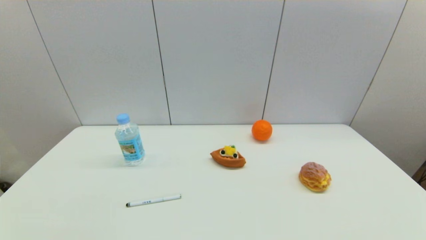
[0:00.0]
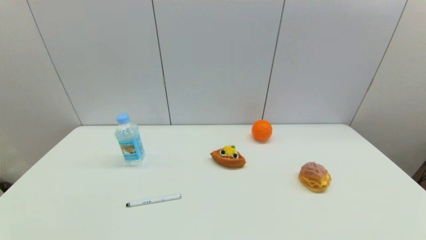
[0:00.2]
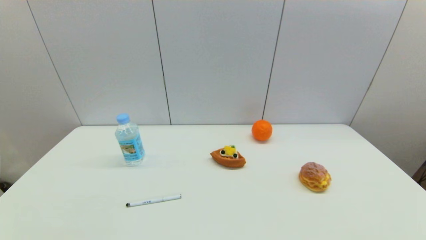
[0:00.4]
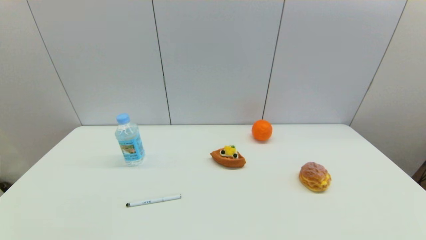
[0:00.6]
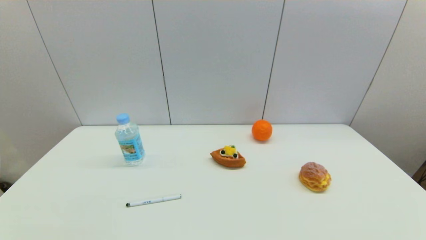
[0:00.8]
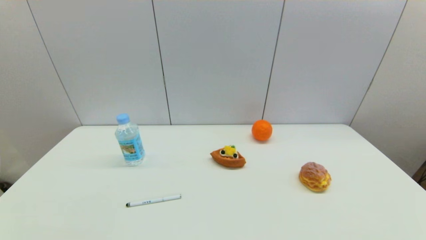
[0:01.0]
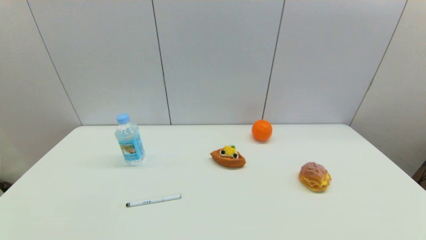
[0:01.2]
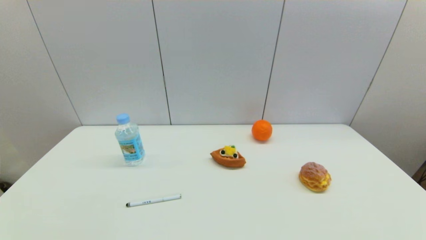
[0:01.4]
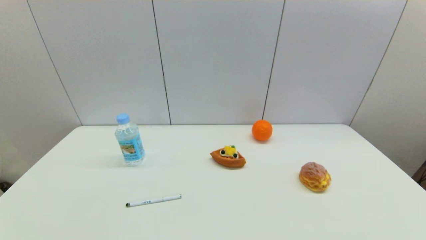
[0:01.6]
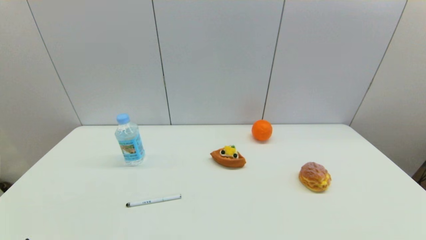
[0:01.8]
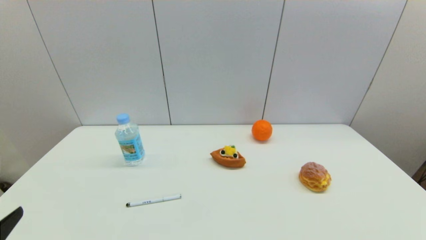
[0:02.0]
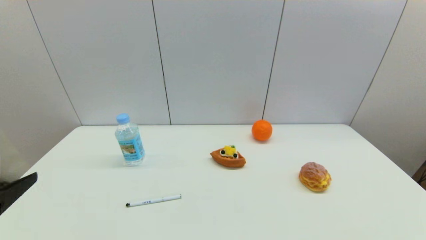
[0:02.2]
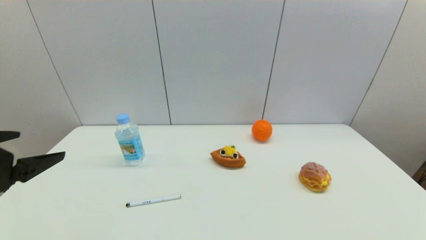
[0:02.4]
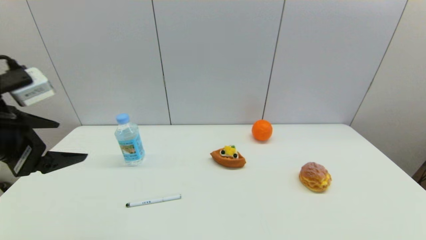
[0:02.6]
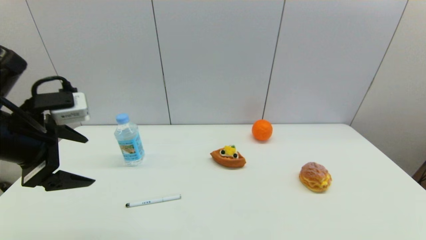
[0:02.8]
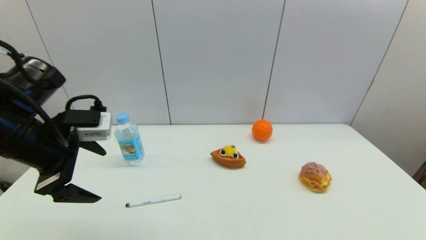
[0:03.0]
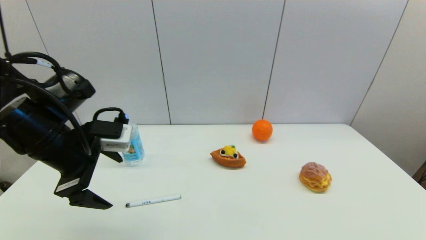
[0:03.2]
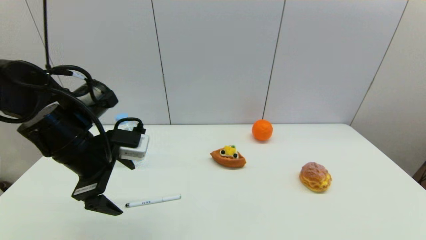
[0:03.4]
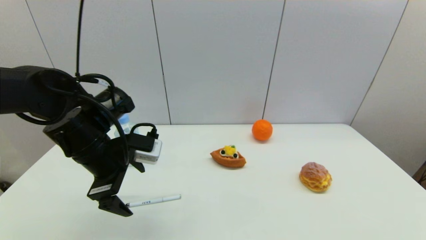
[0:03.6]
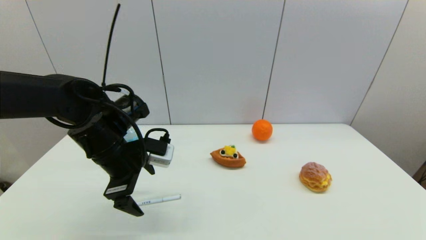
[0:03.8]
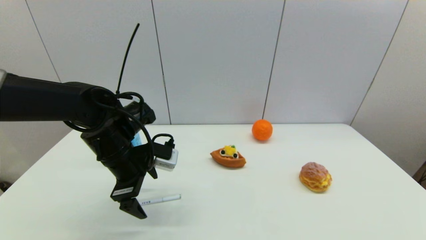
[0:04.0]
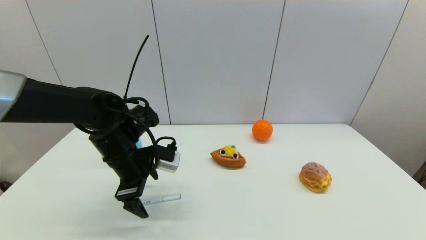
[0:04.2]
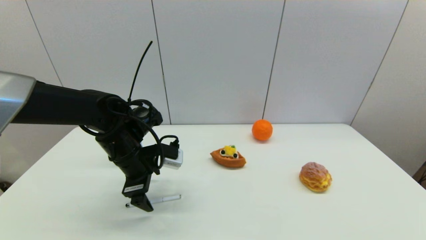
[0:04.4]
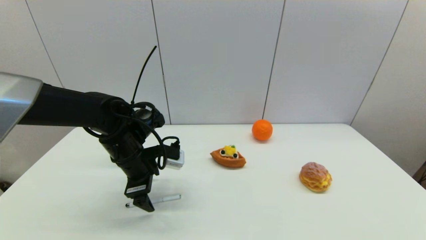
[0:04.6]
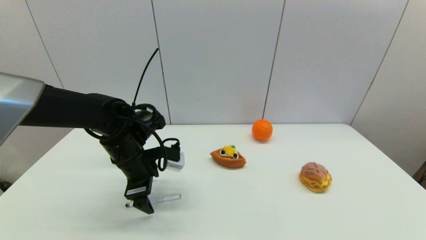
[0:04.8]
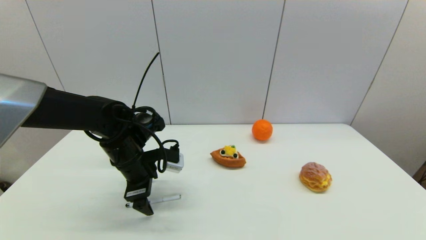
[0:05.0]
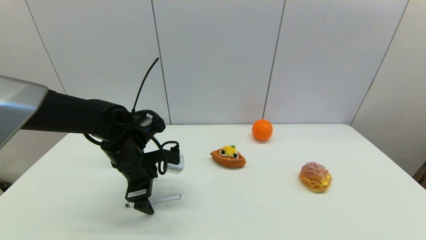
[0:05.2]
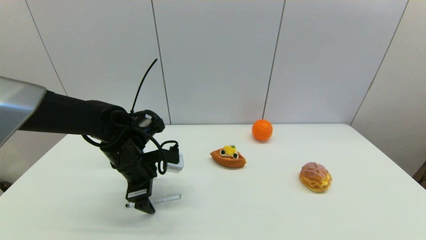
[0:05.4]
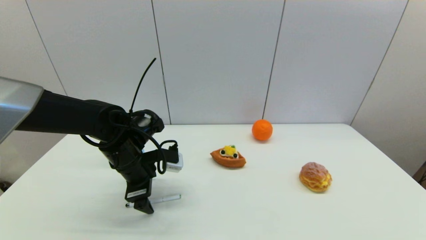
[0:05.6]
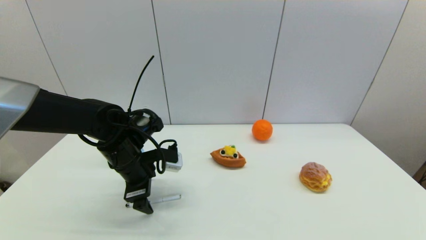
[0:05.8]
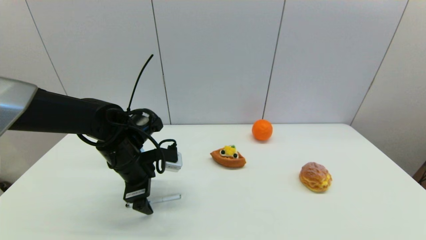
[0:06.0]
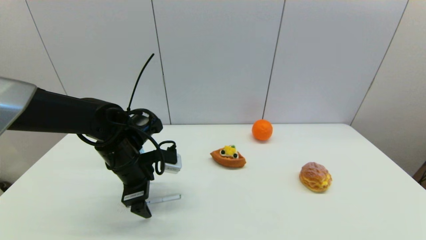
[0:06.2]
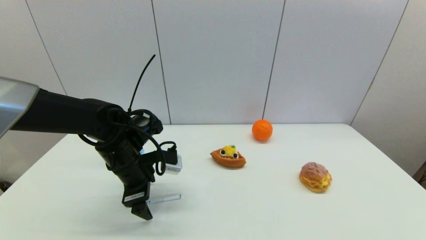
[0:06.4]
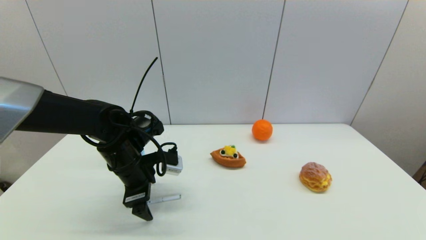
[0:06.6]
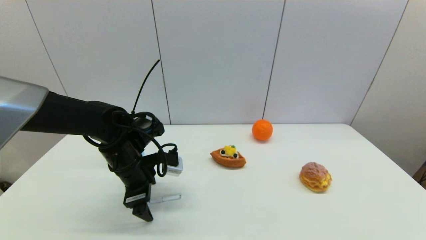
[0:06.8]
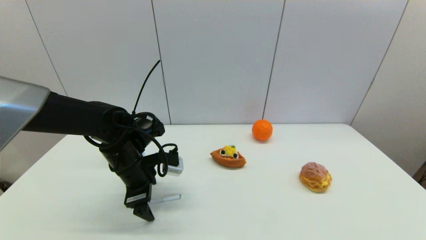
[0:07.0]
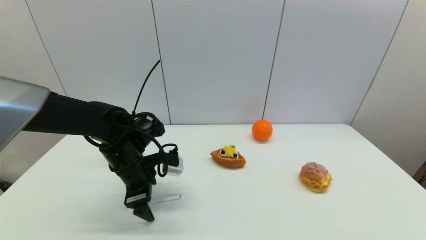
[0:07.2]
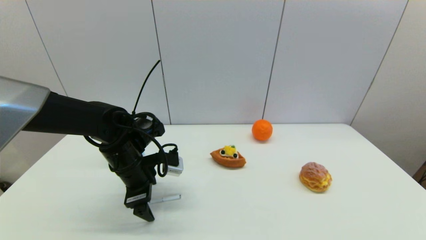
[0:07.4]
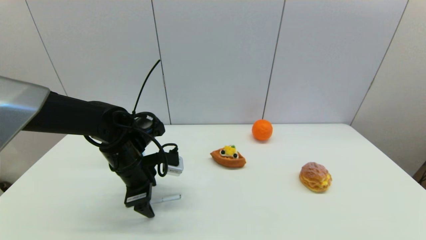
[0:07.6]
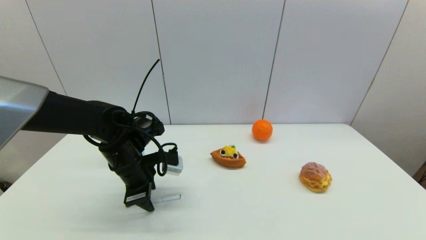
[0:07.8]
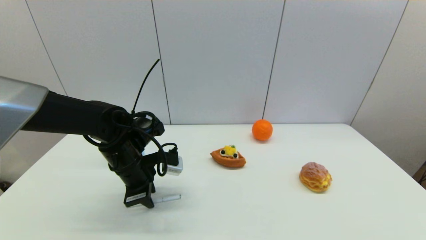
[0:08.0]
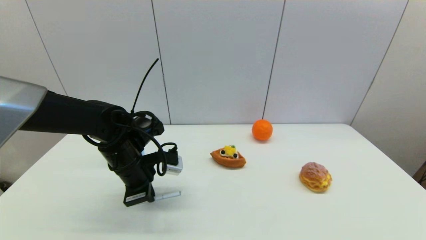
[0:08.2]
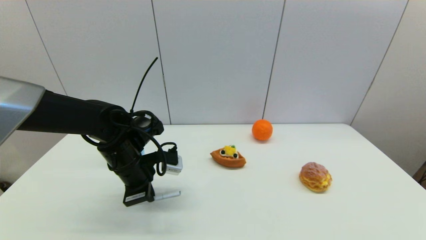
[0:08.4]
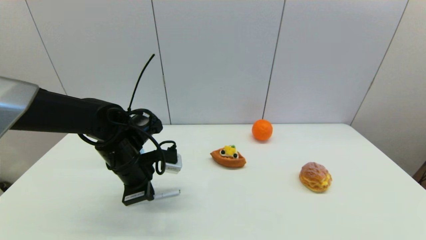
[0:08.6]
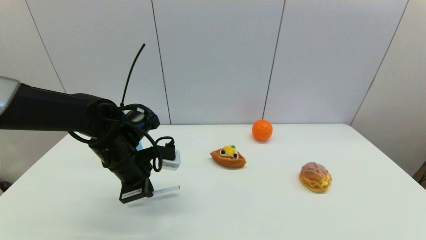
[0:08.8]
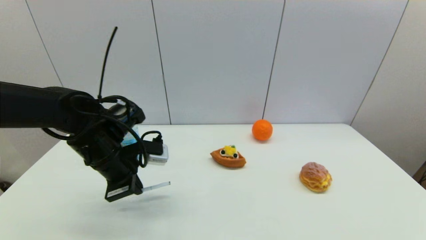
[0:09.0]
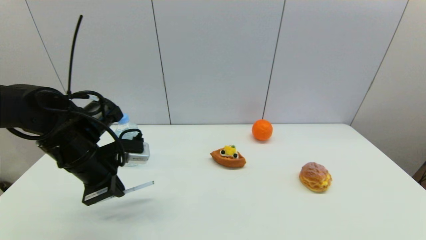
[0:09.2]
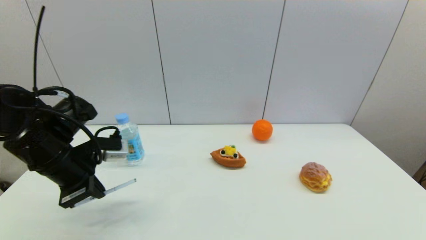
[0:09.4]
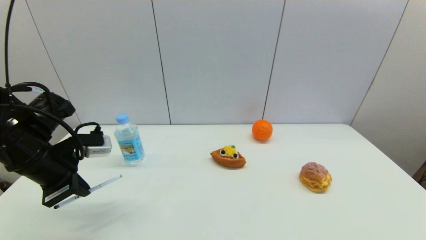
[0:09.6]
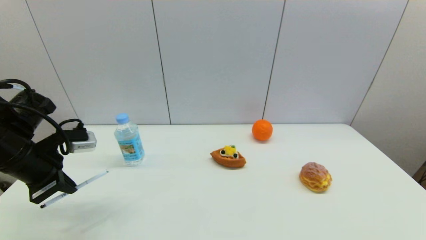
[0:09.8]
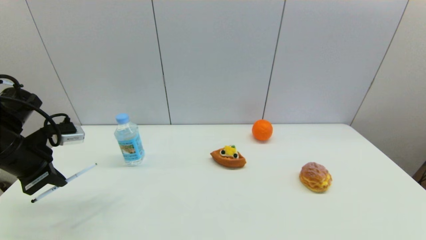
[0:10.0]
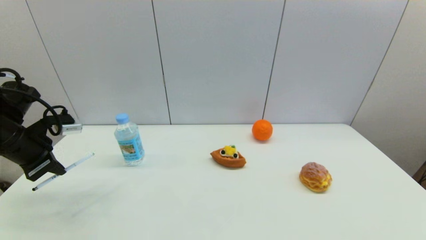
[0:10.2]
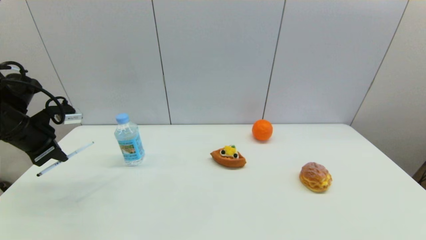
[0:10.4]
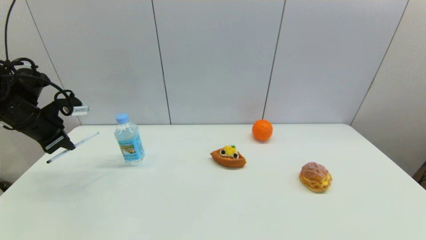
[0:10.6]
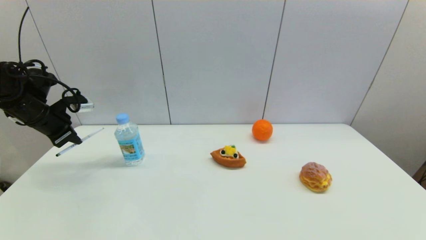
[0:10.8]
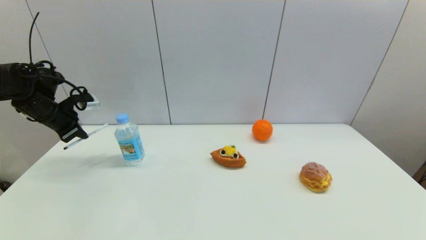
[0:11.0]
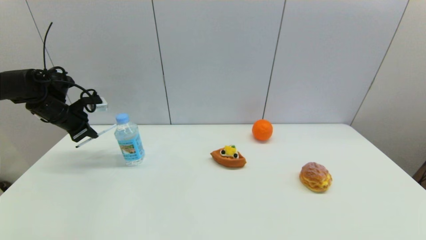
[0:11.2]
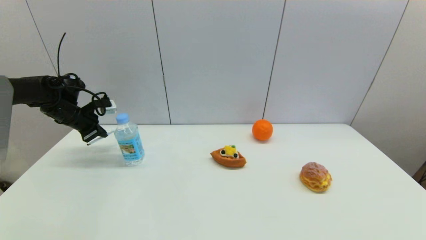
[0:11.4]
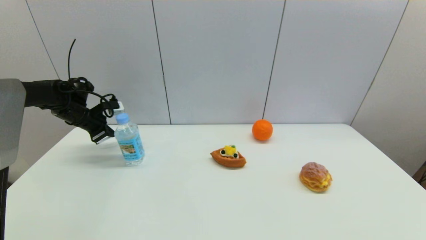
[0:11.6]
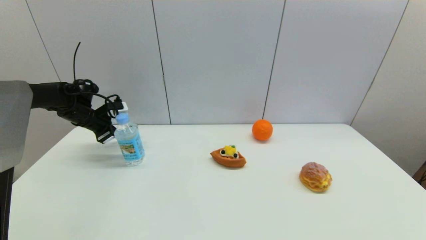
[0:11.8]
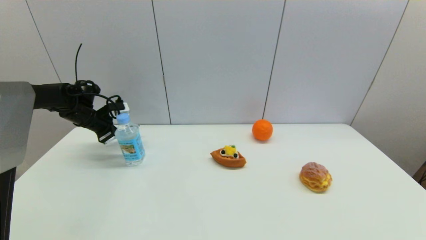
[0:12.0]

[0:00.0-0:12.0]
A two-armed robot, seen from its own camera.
Task of the whole recording: put the pen in the designated position.
Step, 0:02.0 to 0:08.2: Grasp the sign pen with left gripper.
0:00.0 to 0:01.6: Both grippers stay about where they are.
0:01.6 to 0:03.0: The left gripper goes roughly 30 cm forward and upward.
0:03.0 to 0:04.4: The left gripper moves downward, to the right and forward, approximately 15 cm.
0:04.4 to 0:06.0: The grippers move only a little.
0:06.0 to 0:07.6: The two grippers keep their place.
0:07.6 to 0:09.0: The left gripper ends up about 5 cm from where it was, and closes its fingers.
0:09.0 to 0:10.4: The left gripper shifts roughly 20 cm to the left.
0:10.4 to 0:12.0: The left gripper heads forward and downward, covering about 15 cm.

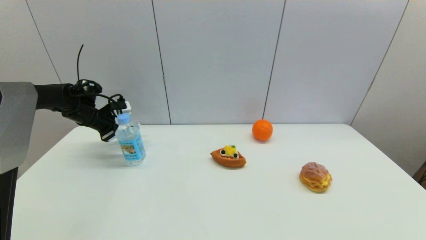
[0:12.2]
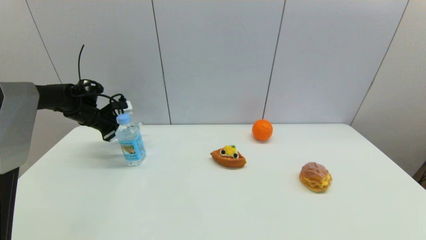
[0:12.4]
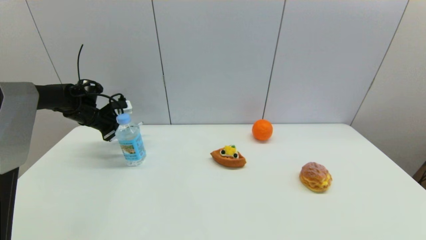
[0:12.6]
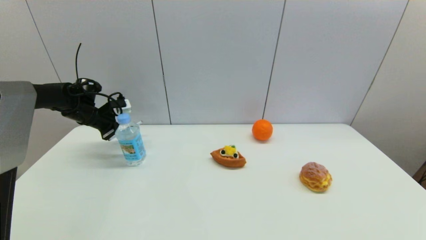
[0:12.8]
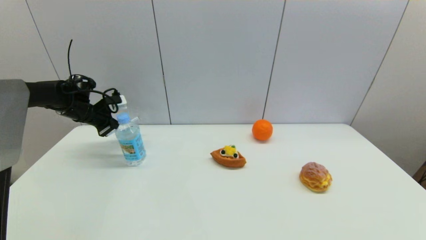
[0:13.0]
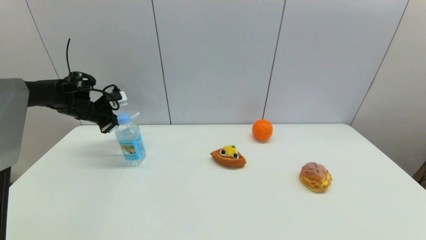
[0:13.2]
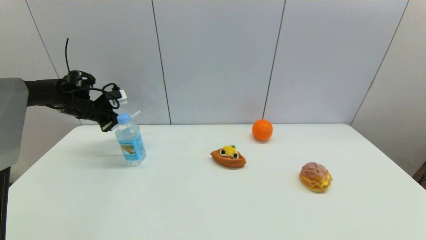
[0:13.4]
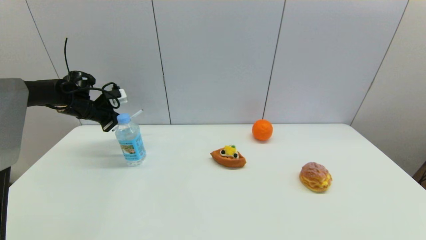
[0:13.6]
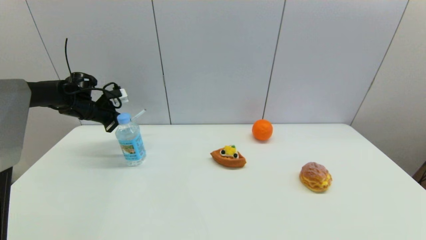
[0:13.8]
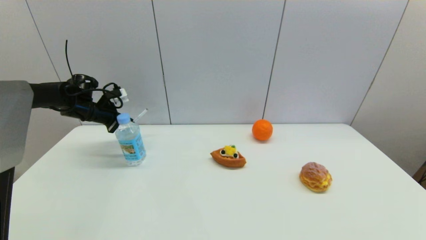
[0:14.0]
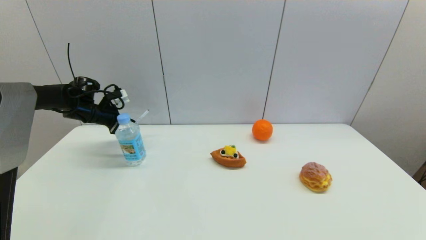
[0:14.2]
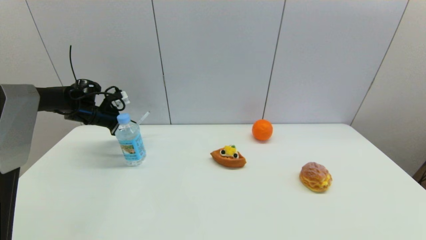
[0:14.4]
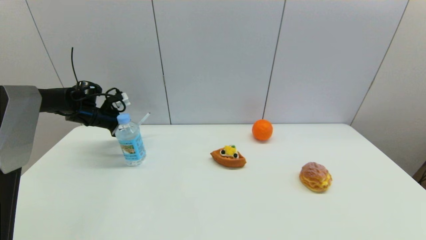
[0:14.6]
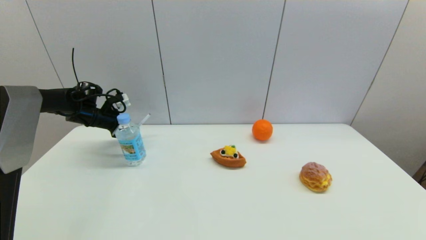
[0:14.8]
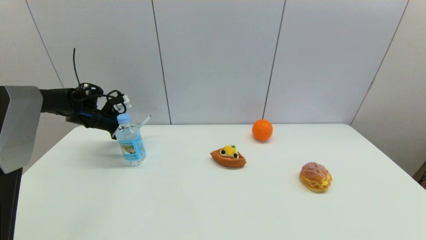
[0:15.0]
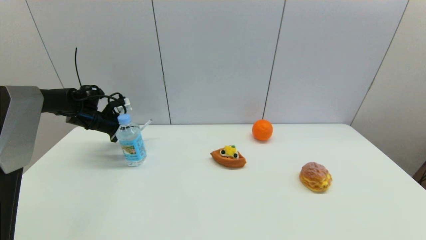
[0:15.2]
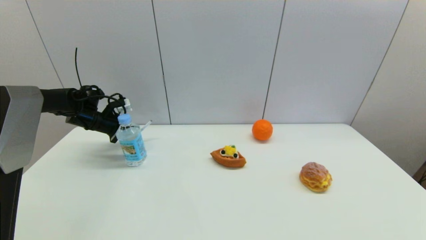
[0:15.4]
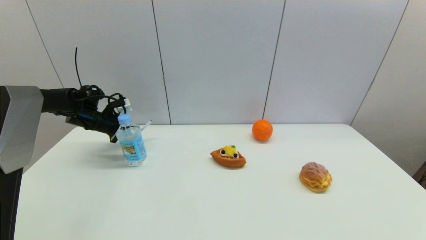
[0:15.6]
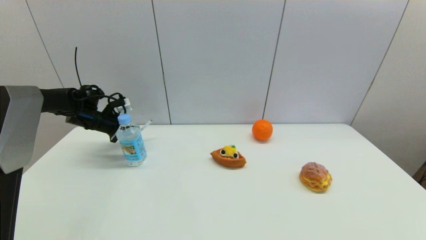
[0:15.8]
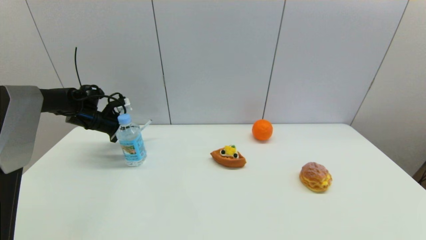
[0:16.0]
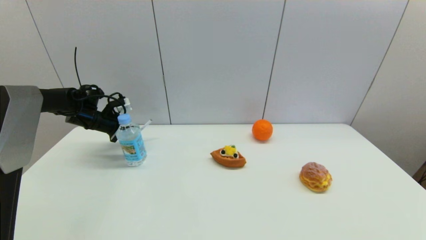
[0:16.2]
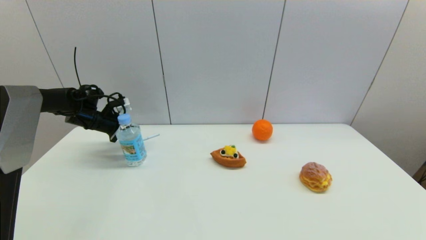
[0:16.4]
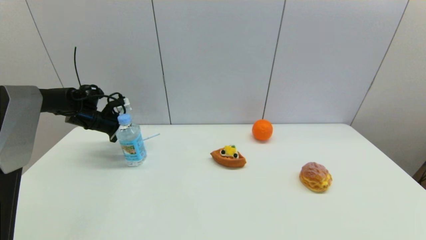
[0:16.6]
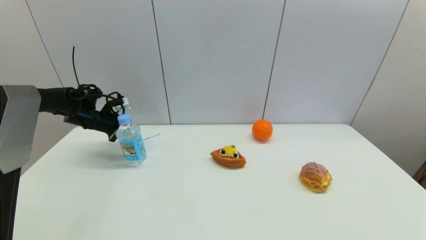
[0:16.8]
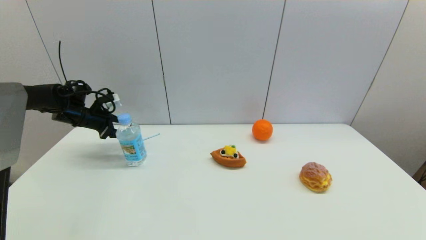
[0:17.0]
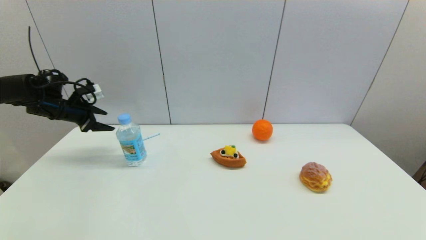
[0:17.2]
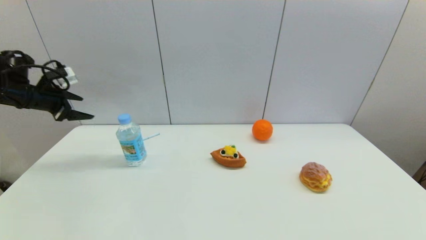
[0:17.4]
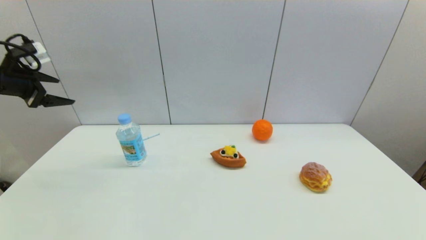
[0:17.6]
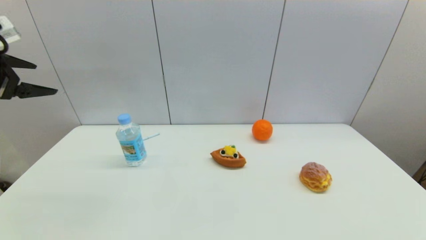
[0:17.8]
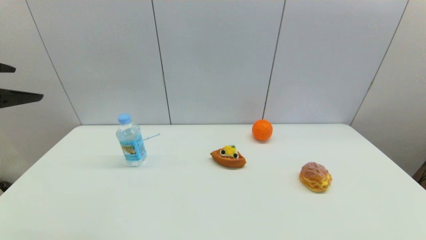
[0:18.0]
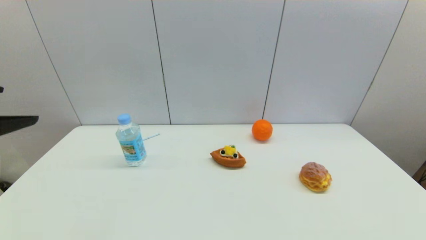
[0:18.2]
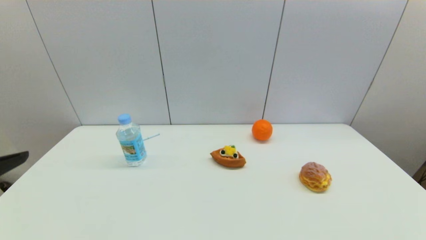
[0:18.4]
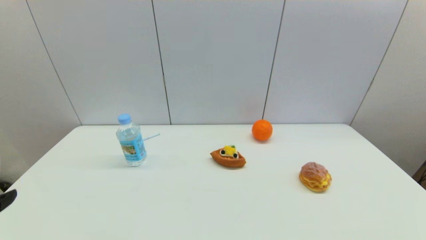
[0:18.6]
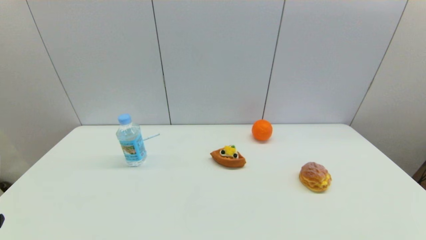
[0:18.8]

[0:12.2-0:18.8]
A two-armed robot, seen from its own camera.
Task of the whole recording: put the pen in the designated position.
Step, 0:12.2 to 0:16.6: Place the sign pen on the table with left gripper.
0:12.2 to 0:13.8: The grippers make only small movements.
0:13.8 to 0:15.4: The grippers stay close to where they were, moving slightly.
0:15.4 to 0:17.2: The left gripper shifts roughly 10 cm to the left and upward, and opens its fingers.
0:17.2 to 0:18.8: The left gripper moves backward, some 40 cm.
